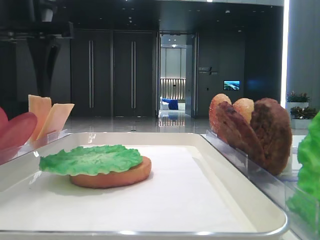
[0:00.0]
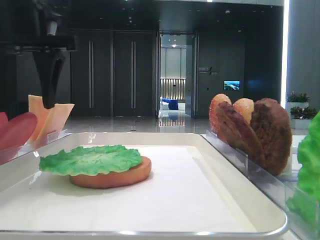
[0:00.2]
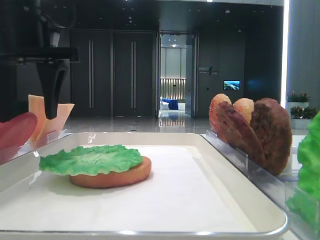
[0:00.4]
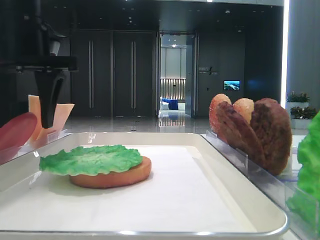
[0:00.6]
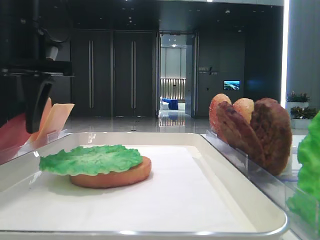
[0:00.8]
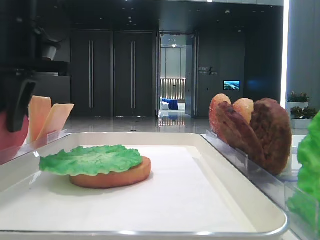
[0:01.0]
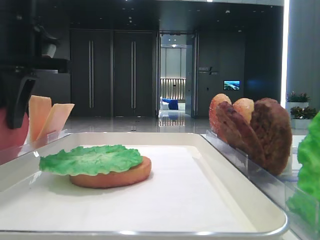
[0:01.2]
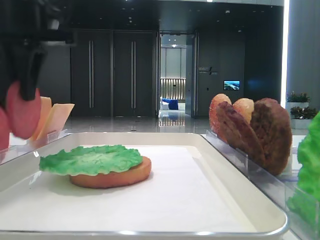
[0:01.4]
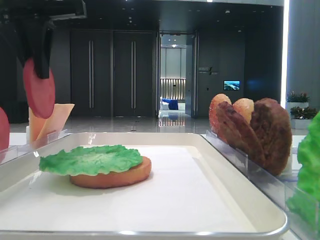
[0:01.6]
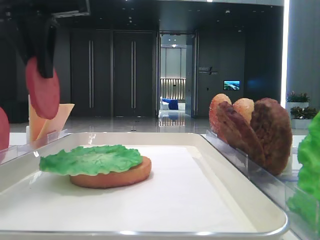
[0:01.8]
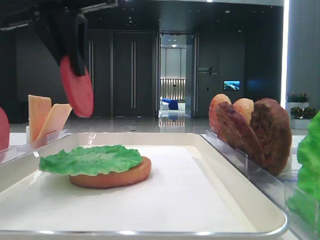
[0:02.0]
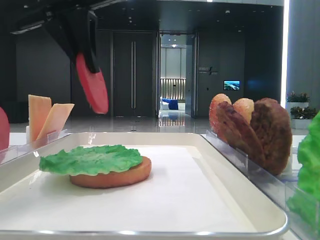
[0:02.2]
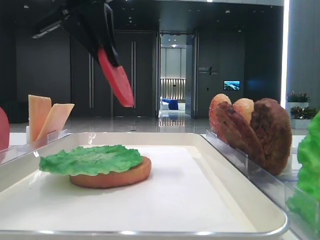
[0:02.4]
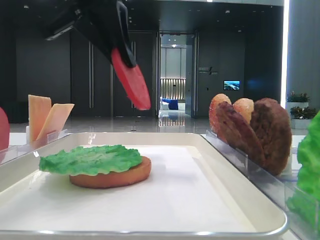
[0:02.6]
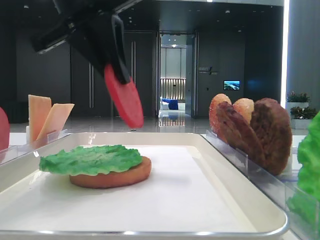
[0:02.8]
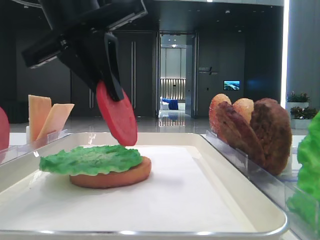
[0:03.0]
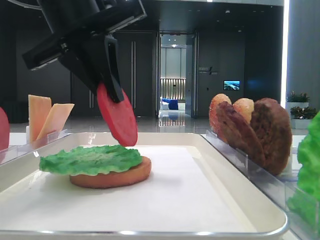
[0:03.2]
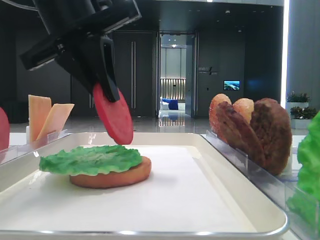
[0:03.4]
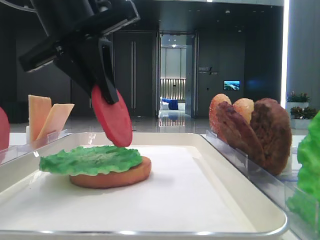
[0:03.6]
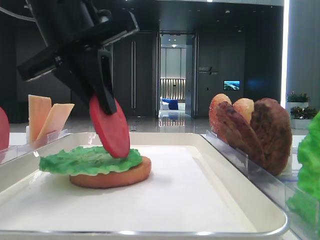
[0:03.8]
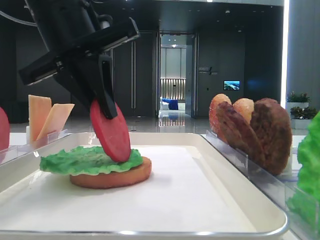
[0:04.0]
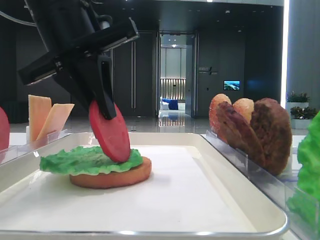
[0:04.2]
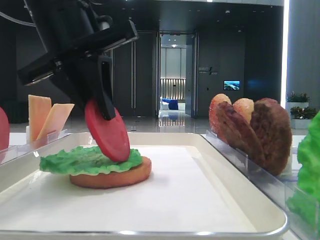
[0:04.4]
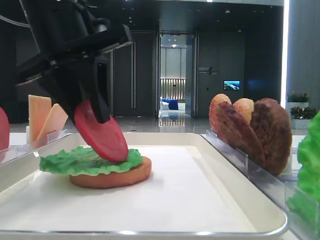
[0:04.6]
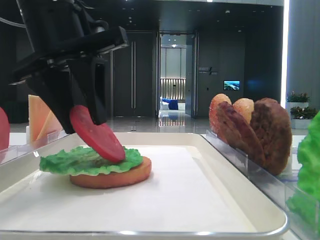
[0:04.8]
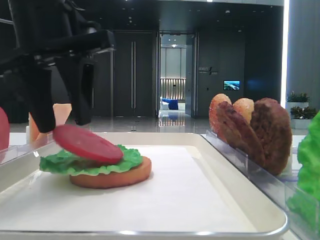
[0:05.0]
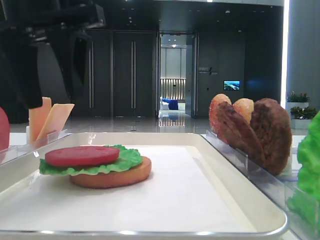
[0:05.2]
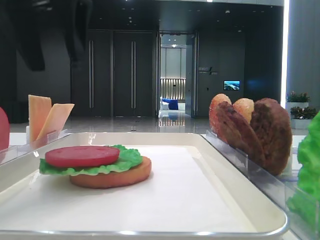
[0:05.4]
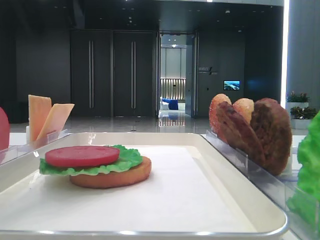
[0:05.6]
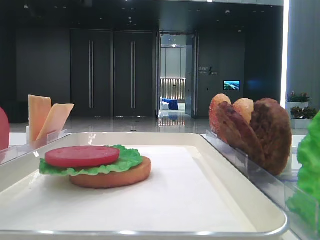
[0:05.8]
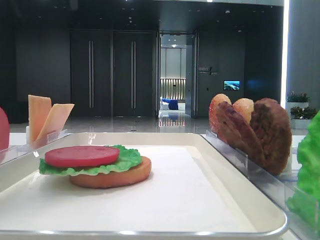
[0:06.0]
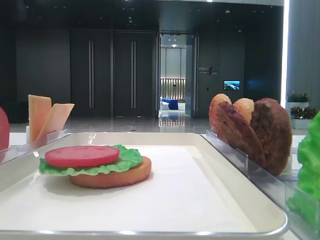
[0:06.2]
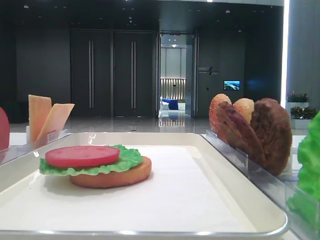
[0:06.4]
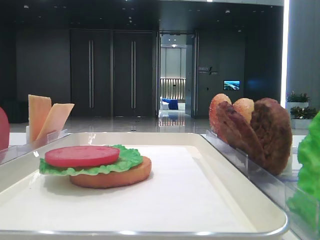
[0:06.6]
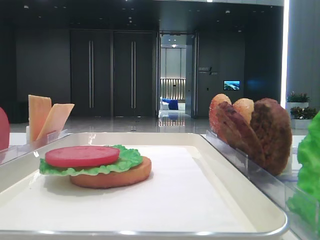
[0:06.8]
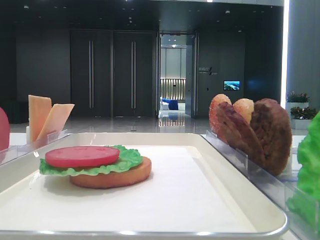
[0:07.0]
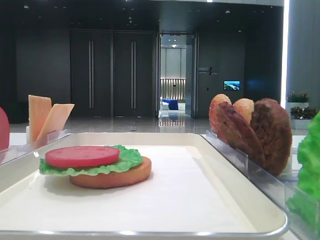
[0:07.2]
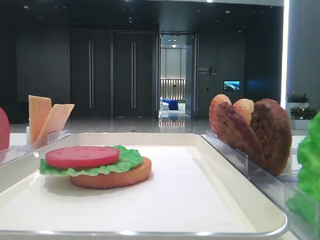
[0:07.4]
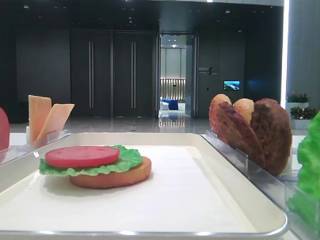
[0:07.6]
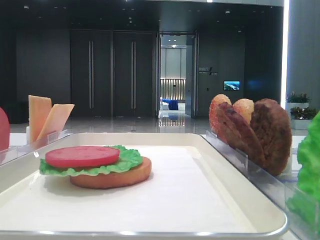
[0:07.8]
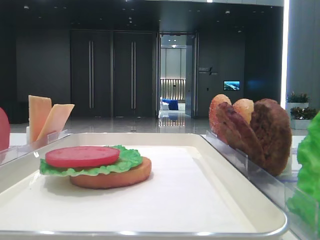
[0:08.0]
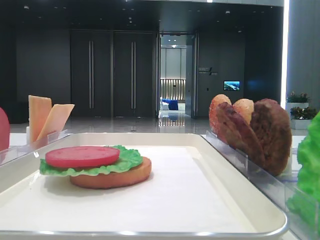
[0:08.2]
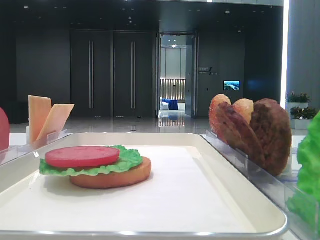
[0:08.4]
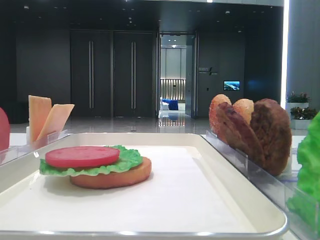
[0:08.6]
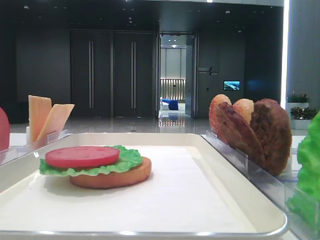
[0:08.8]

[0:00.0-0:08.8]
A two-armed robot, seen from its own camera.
Step, 1.2 to 5.0 s: Place the tomato slice on the lettuce leaf with the left hand.
0.0 to 1.4 s: The left gripper closes its fingers.
1.4 to 3.0 s: The left gripper travels to the right by some 10 cm.
3.0 to 4.4 s: The grippers stay close to where they were, moving slightly.
4.4 to 5.8 s: The left gripper travels upward by approximately 15 cm, and opens its fingers.
5.8 to 7.4 s: The left gripper moves backward, to the left and downward, roughly 30 cm.

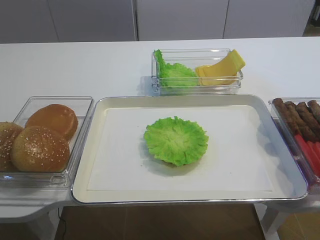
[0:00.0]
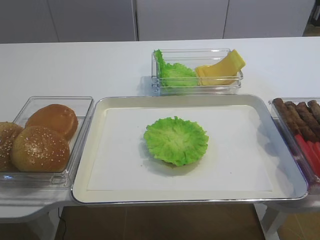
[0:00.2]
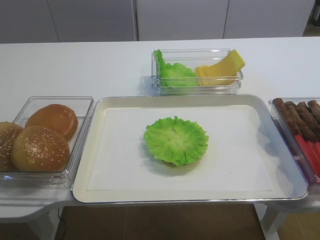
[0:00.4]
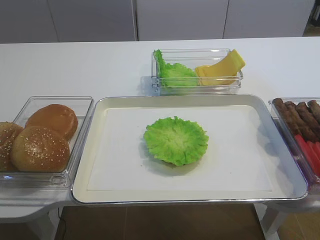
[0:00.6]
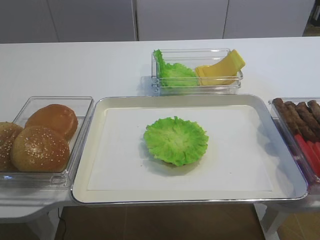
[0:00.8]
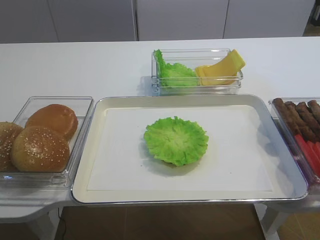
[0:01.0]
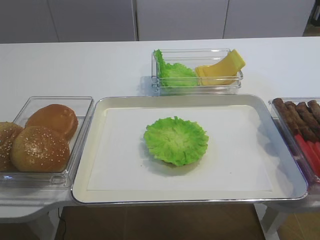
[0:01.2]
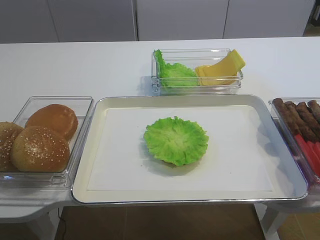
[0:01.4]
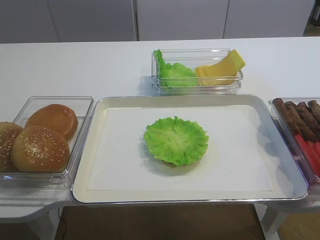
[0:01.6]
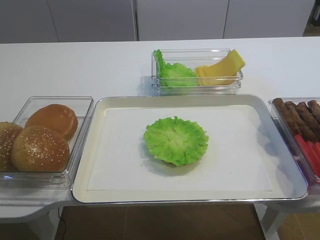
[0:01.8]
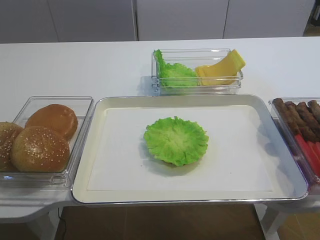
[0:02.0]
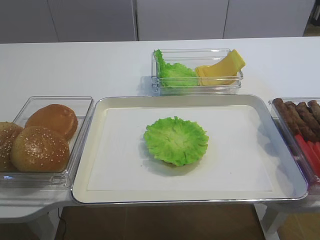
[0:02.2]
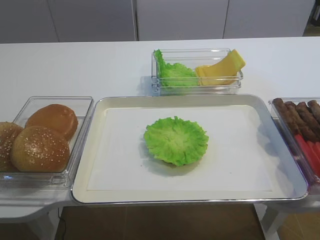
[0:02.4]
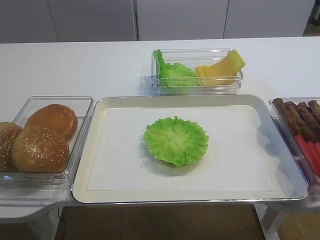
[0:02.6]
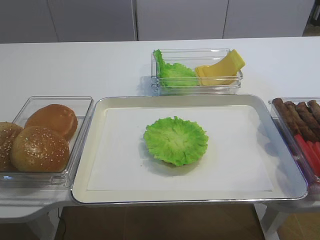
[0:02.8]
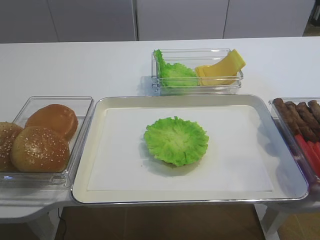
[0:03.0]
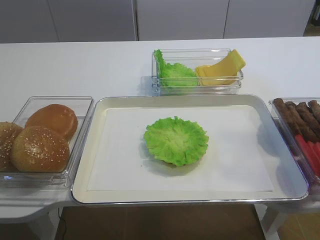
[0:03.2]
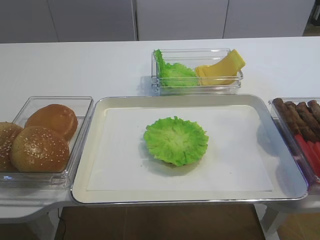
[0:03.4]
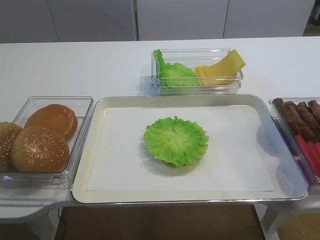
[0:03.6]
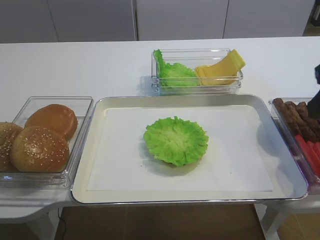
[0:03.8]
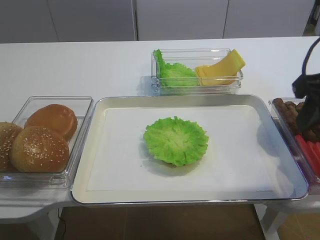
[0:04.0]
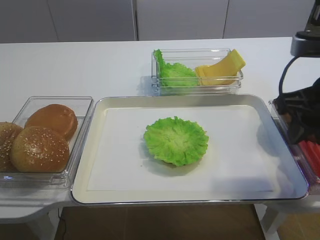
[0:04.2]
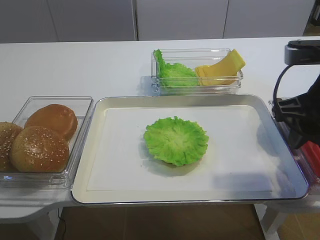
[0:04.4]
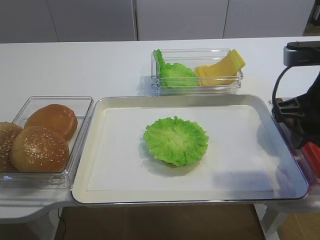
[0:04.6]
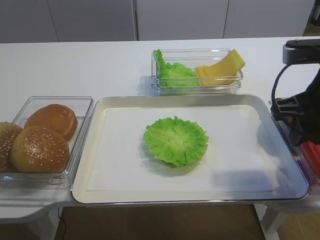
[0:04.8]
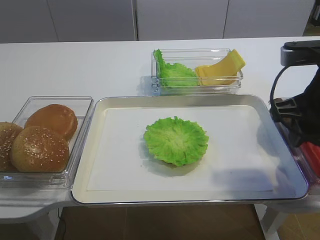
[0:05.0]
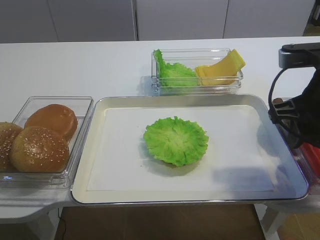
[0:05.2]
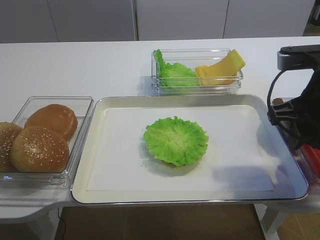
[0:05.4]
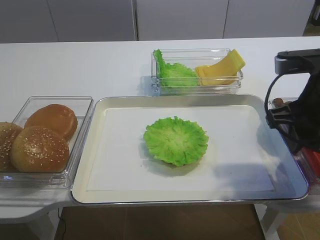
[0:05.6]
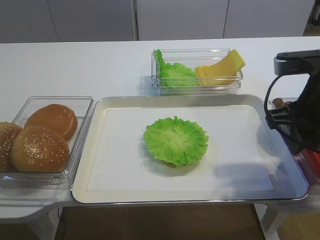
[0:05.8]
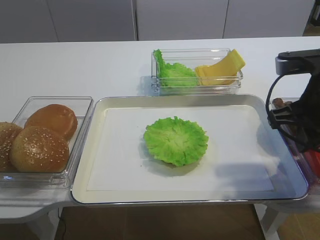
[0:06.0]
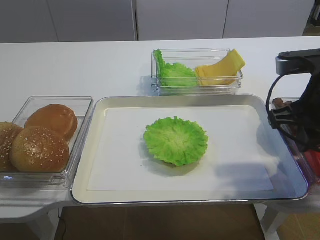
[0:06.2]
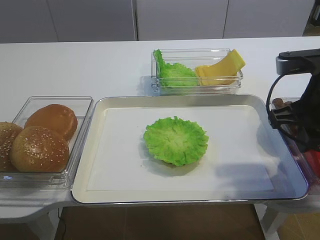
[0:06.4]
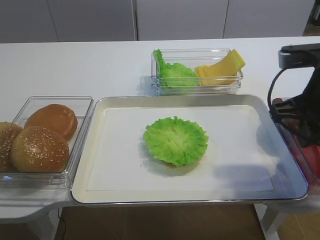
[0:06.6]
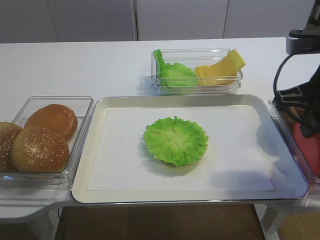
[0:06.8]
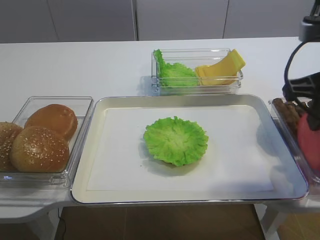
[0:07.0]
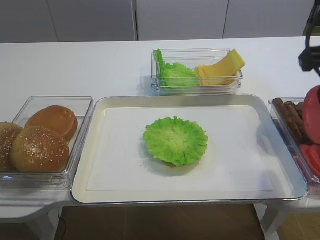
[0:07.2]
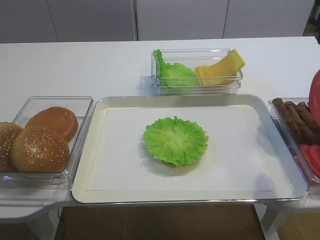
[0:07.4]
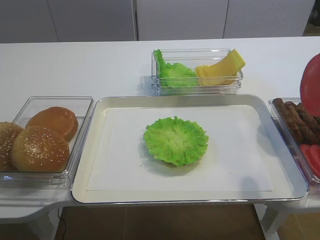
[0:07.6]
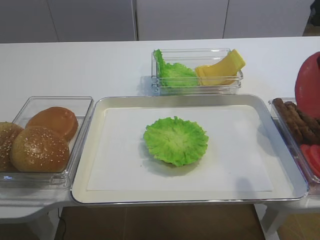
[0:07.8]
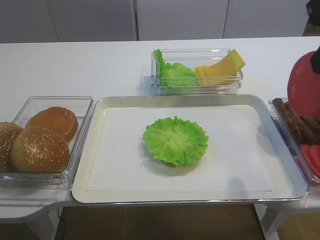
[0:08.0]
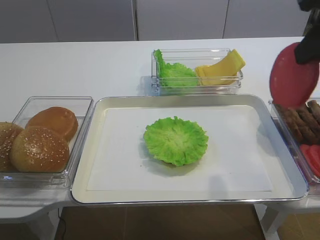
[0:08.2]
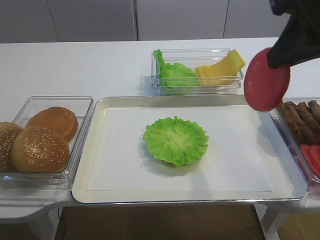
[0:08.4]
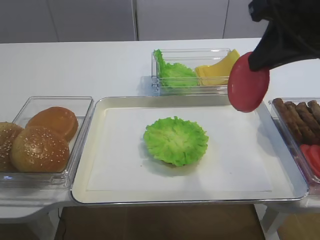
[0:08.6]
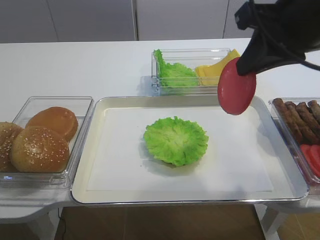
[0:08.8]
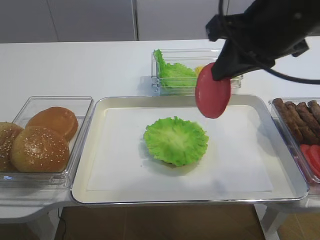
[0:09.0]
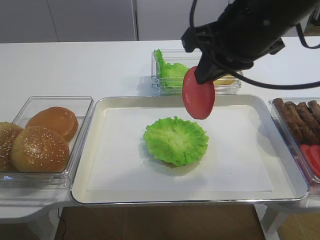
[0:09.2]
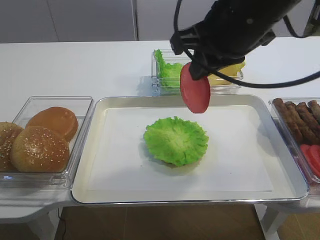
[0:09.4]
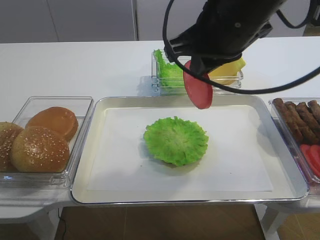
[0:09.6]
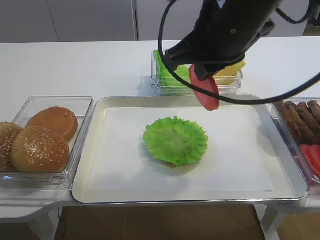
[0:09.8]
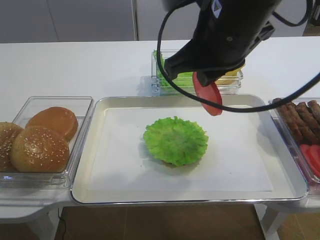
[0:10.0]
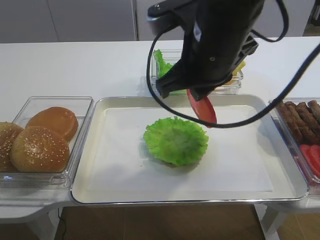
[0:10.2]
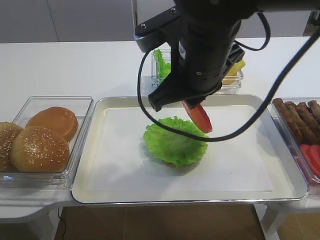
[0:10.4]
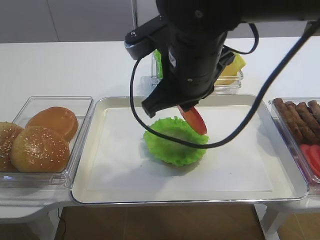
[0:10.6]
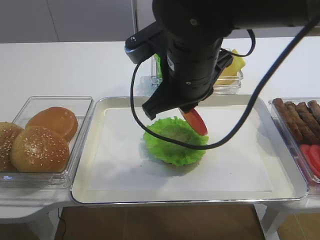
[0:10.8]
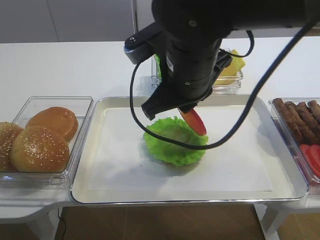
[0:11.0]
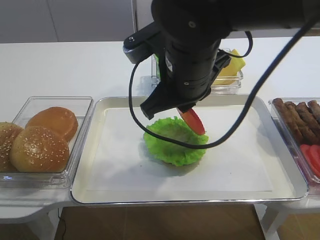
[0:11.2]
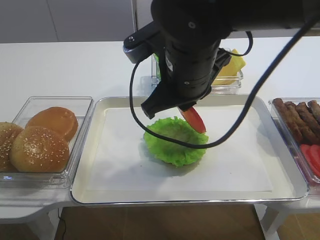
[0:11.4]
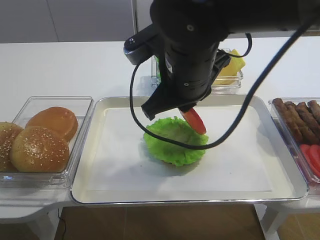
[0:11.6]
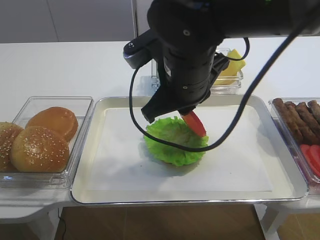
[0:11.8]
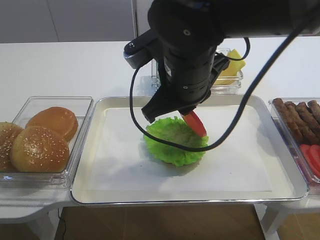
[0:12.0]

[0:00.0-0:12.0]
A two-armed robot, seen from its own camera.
Step, 0.0 to 7.0 s: Pick up the tomato slice with the right gripper.
3.0 to 4.4 s: The right gripper shifts roughly 20 cm forward.
4.4 to 6.0 s: The right gripper closes.
6.0 to 7.6 s: The right gripper heads upward, covering some 15 cm.
7.6 to 9.0 s: The right gripper shifts about 10 cm to the left and forward.
9.0 to 10.4 s: The right gripper travels to the left and downward by approximately 10 cm.
10.4 to 12.0 s: The grippers make only small movements.

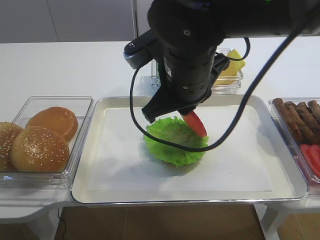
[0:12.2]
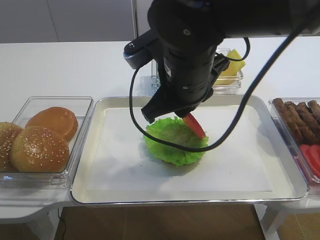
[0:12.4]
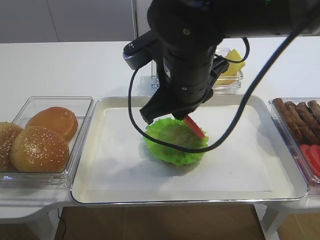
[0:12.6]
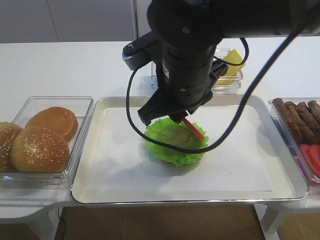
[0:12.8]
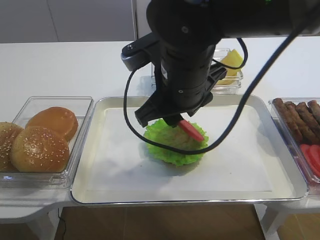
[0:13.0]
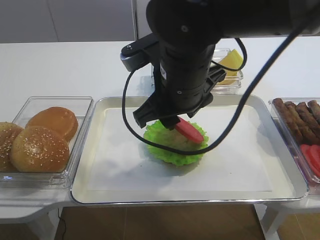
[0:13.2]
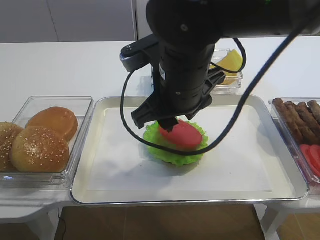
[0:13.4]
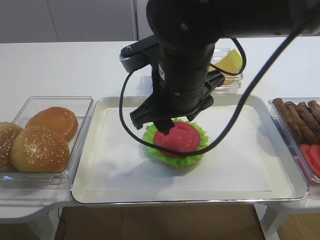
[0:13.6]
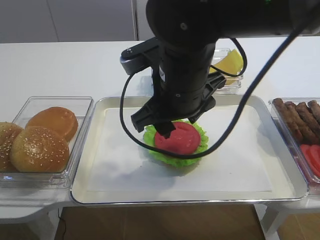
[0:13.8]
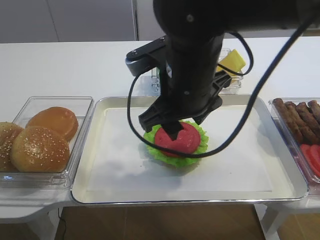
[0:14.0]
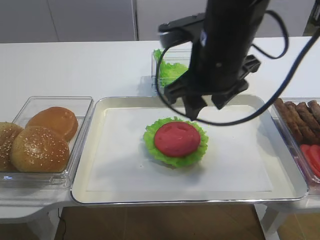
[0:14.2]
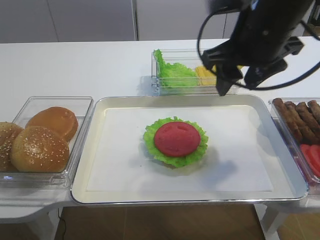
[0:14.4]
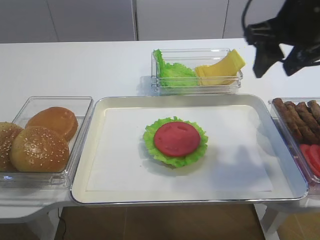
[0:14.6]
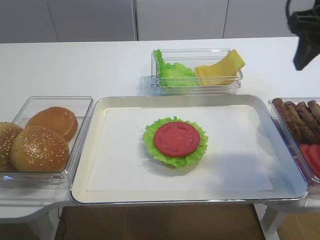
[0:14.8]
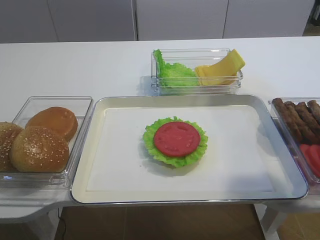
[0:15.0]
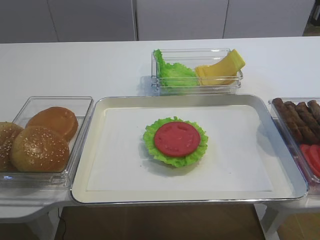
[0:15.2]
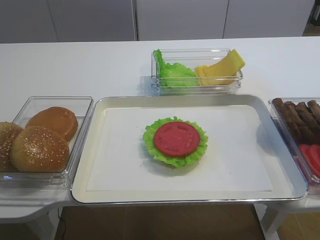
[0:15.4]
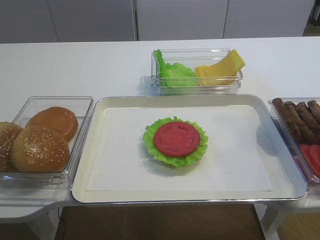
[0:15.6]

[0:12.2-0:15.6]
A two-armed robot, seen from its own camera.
12.2 to 13.8 s: The right gripper opens its fingers.
13.8 to 15.6 s: The right gripper heads to the right, backward and upward, covering some 30 cm.
